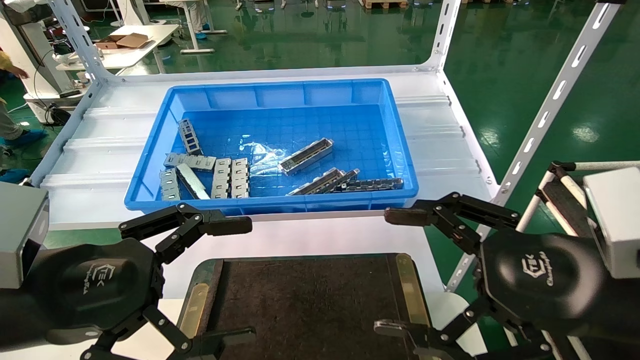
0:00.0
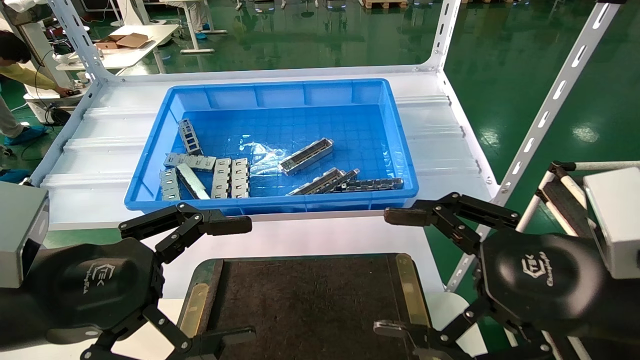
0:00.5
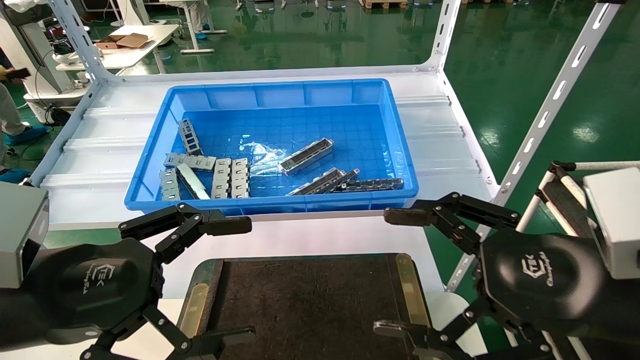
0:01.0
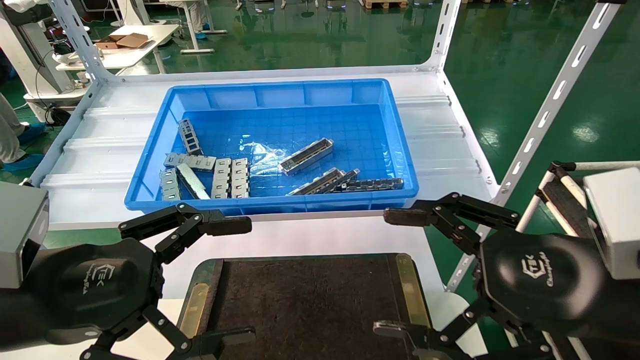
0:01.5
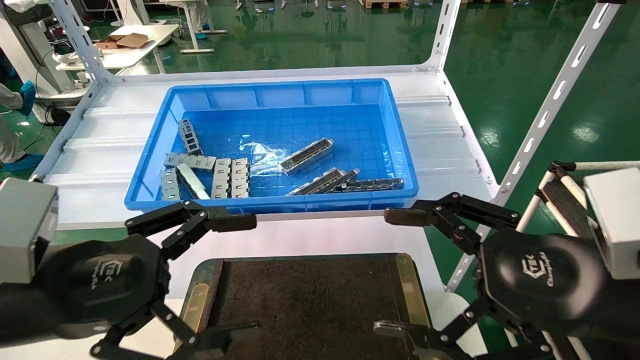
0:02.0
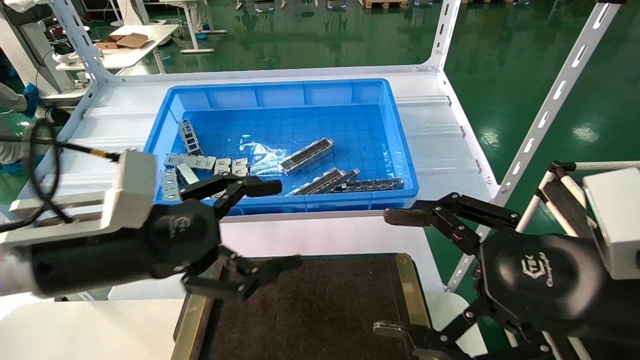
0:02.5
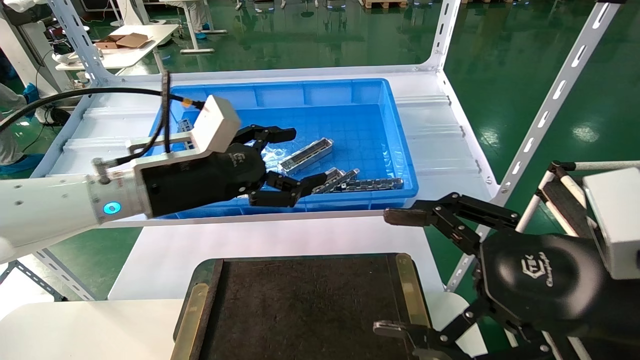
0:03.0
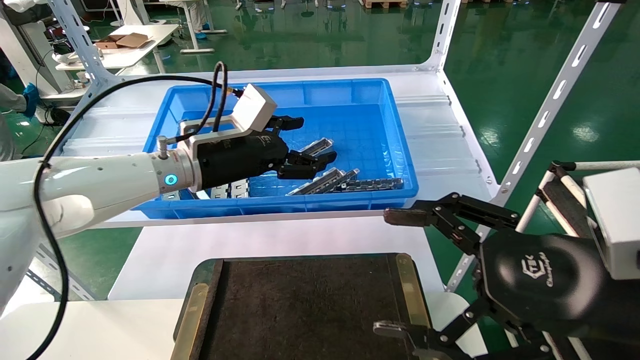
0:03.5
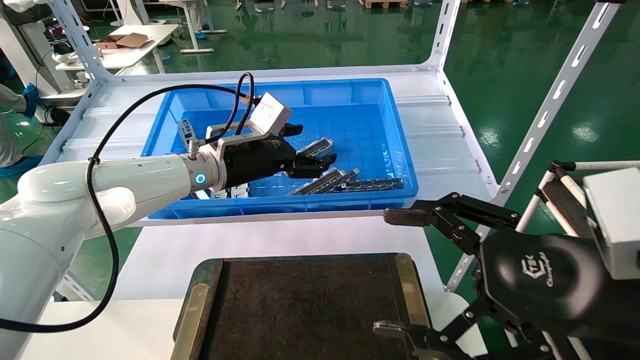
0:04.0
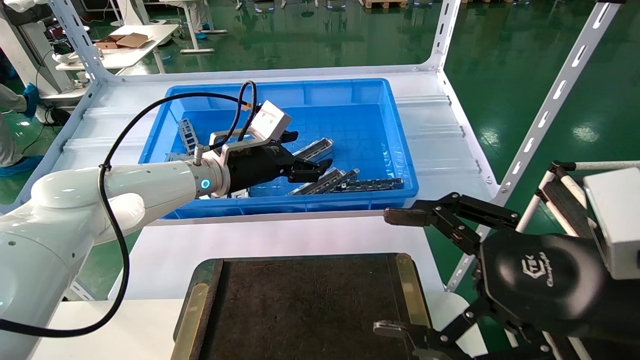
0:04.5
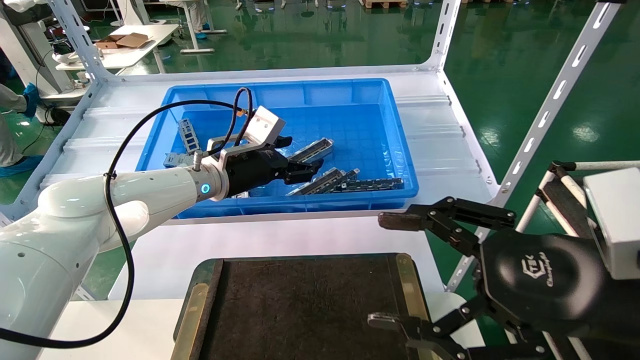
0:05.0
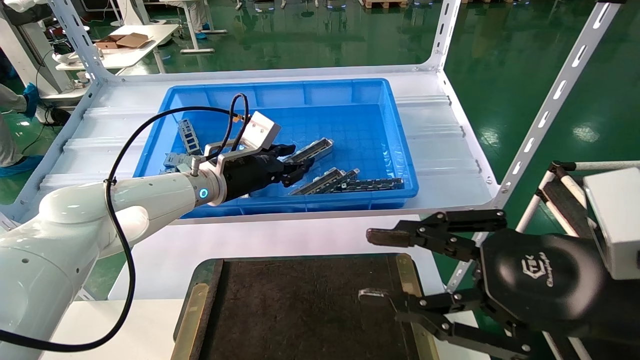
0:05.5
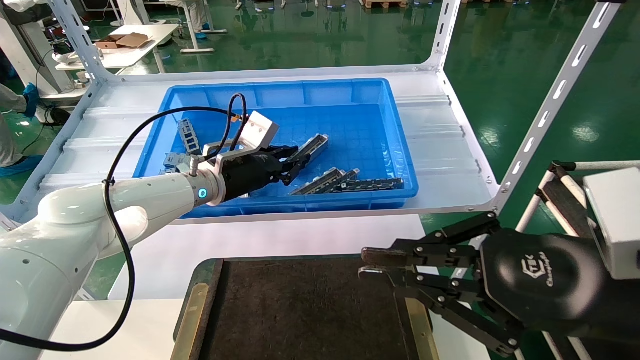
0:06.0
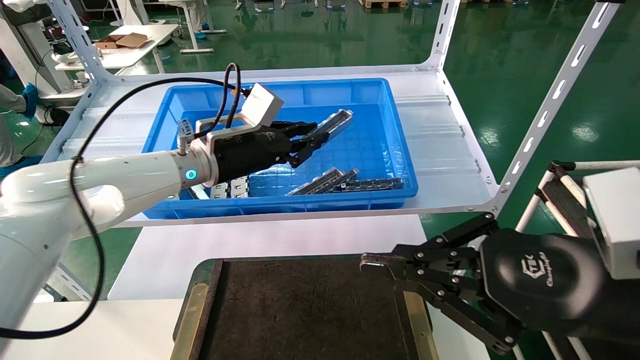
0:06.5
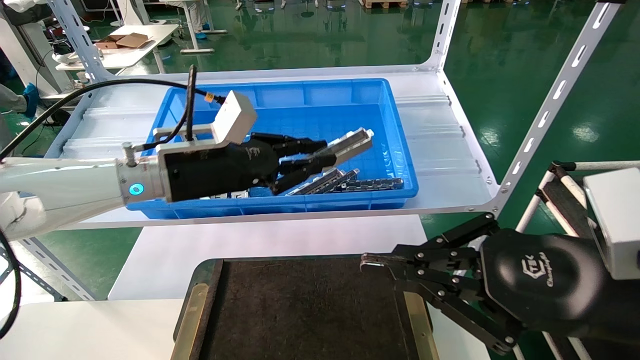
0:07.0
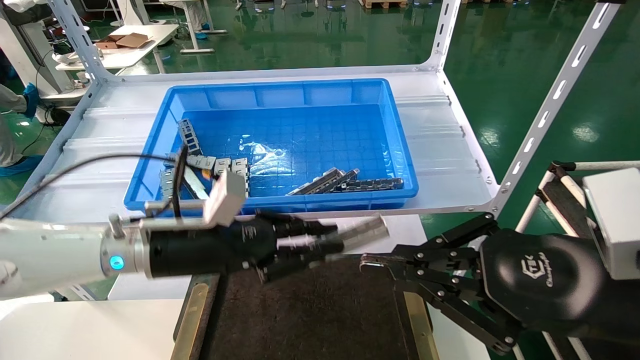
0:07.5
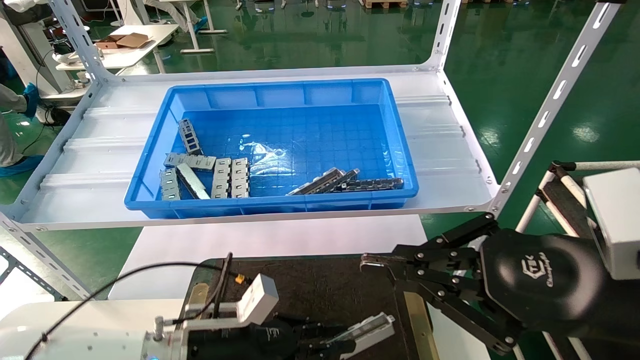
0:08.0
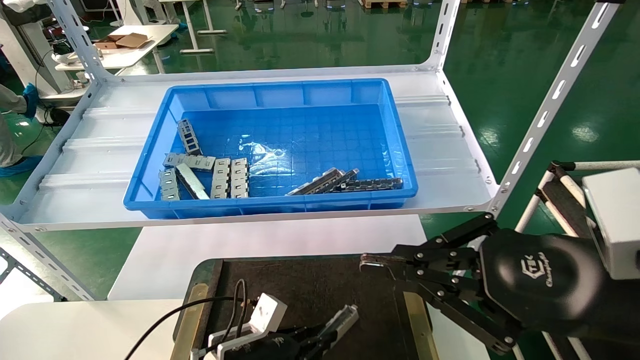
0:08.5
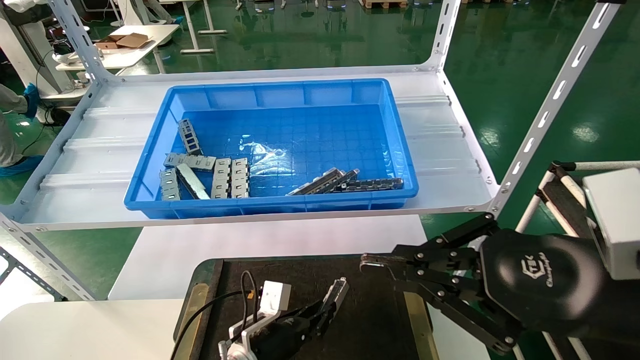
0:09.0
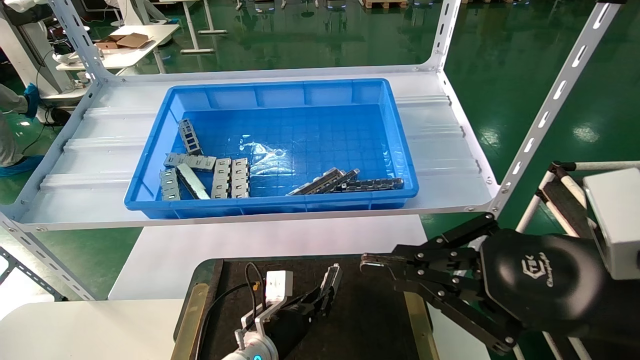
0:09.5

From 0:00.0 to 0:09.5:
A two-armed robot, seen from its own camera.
Task of the whole recording: Grasp the part with one hand and place it on the black container.
Step, from 0:02.5 to 0:05.5: Pick up the front USB bracket from the feeding area.
From 0:00.0 to 0:02.0: Both grippers stay put.
From 0:02.0 to 0:04.0: The left gripper travels forward by some 25 cm.
From 0:04.0 to 0:05.5: The right gripper closes up. The left gripper closes its fingers.
From 0:05.5 to 0:07.5: The left gripper is displaced backward and downward by some 15 cm, and closes up; the right gripper closes.
From 0:07.5 to 0:09.5: The left gripper is displaced downward and to the right by some 25 cm.

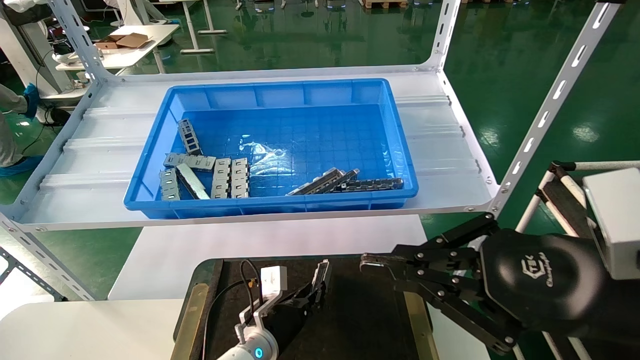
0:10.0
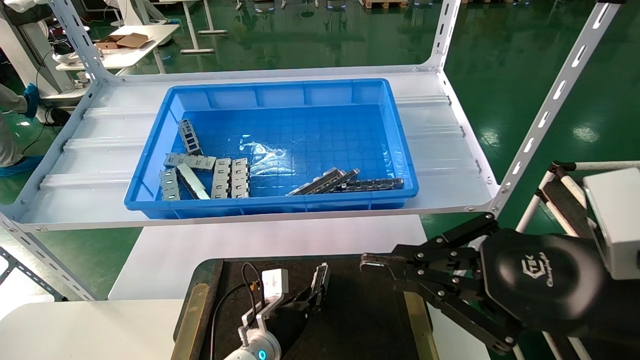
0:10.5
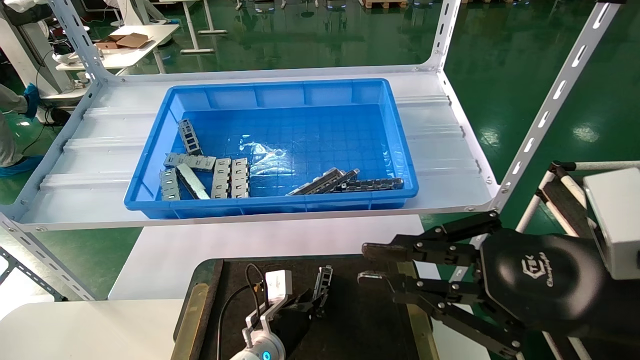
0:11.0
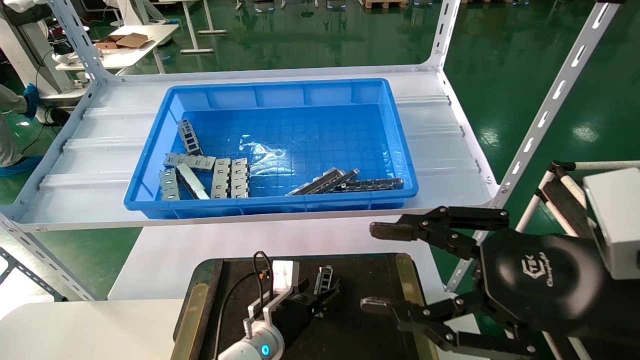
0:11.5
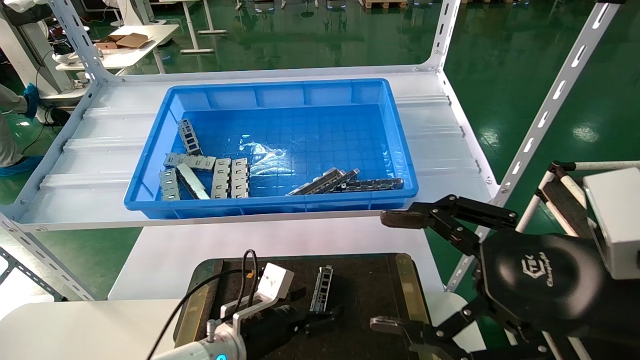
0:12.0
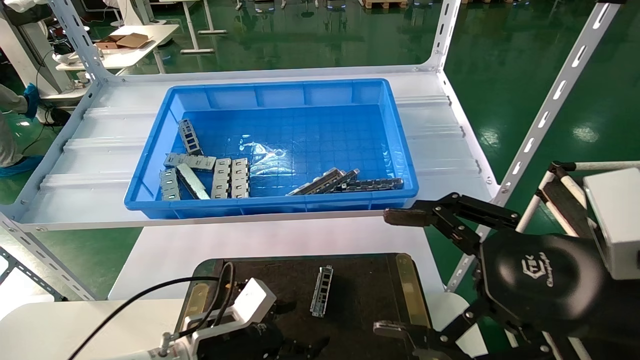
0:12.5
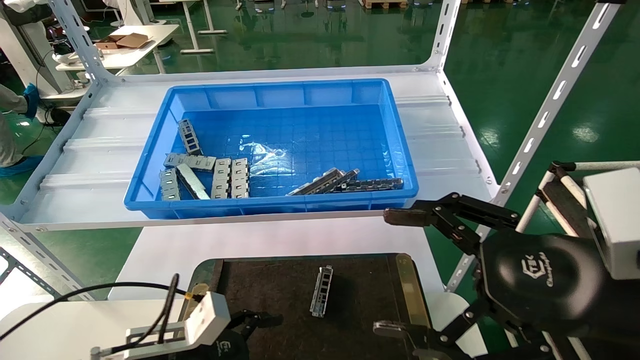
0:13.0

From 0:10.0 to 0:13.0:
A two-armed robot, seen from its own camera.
Task of the whole recording: Grasp the part with one hand and place it on the black container.
From 0:10.0 to 0:11.5: The left gripper opens its fingers; the right gripper opens.
From 0:11.5 to 0:13.0: The left gripper is displaced to the left, backward and upward by some 20 cm, and opens up; the right gripper opens up.

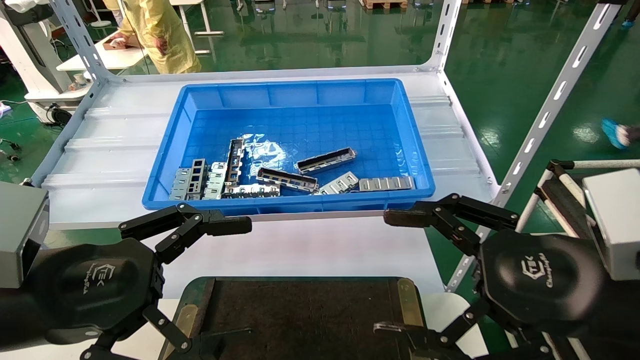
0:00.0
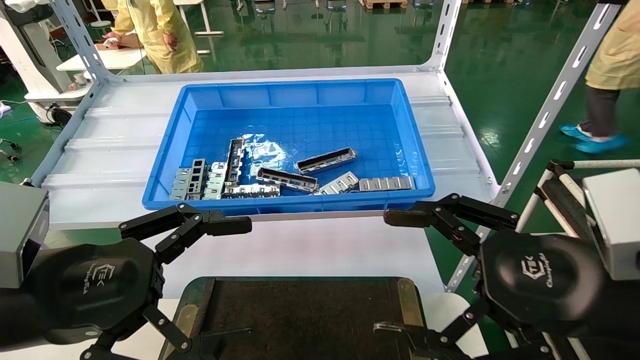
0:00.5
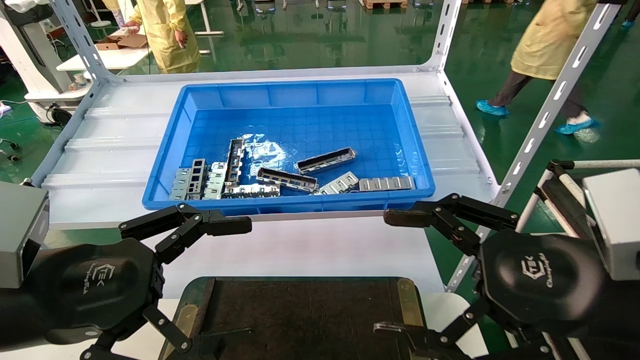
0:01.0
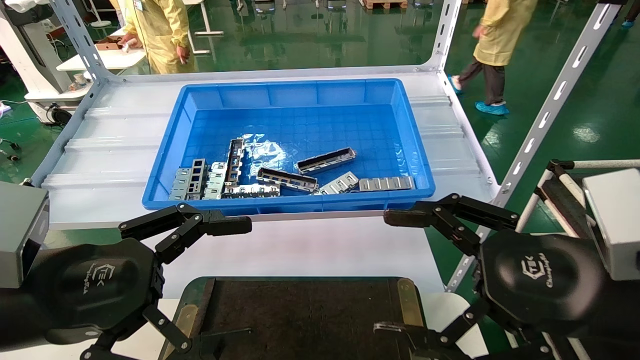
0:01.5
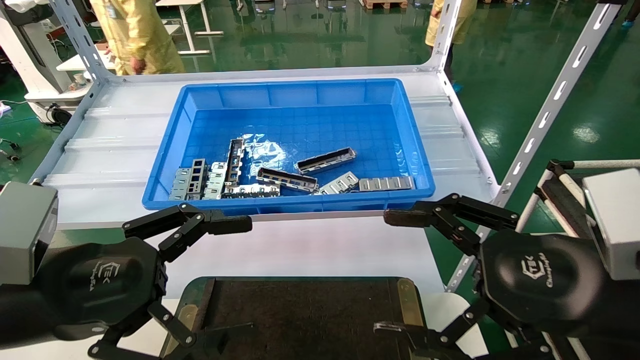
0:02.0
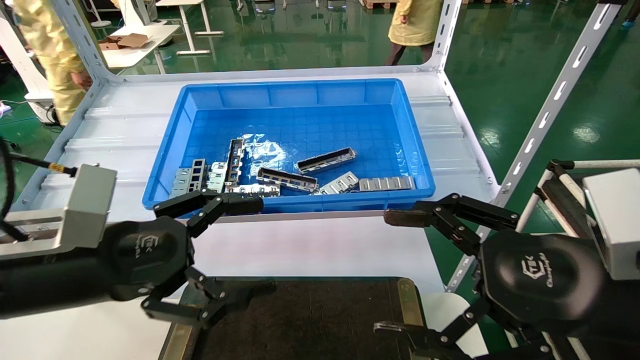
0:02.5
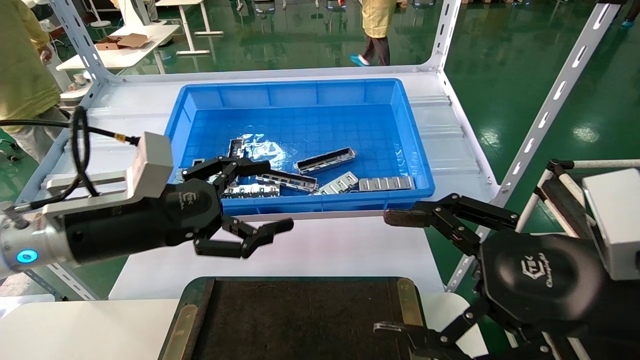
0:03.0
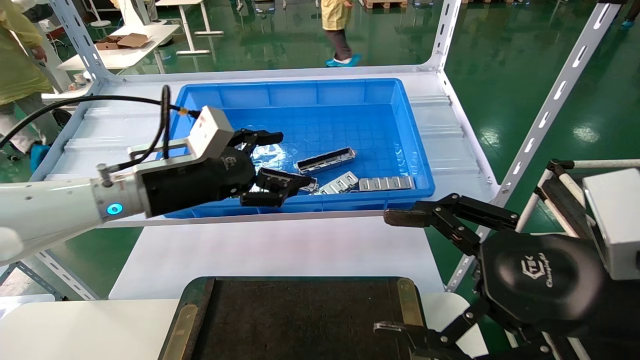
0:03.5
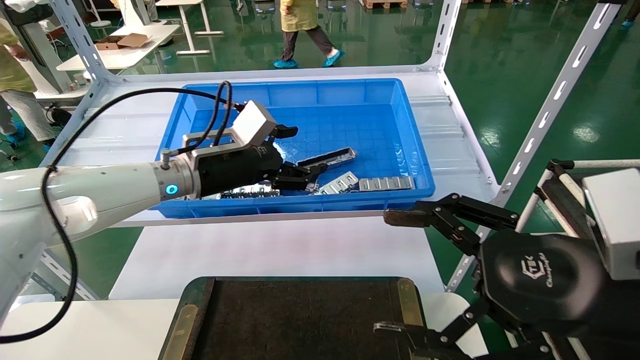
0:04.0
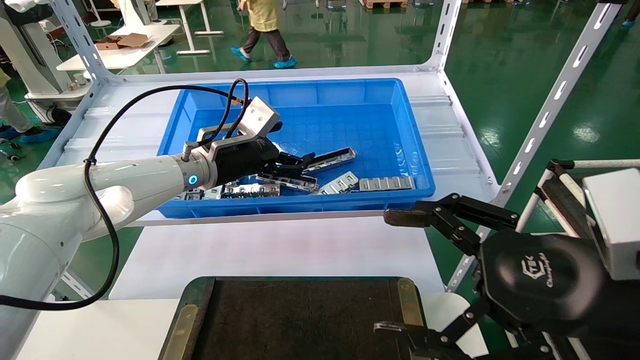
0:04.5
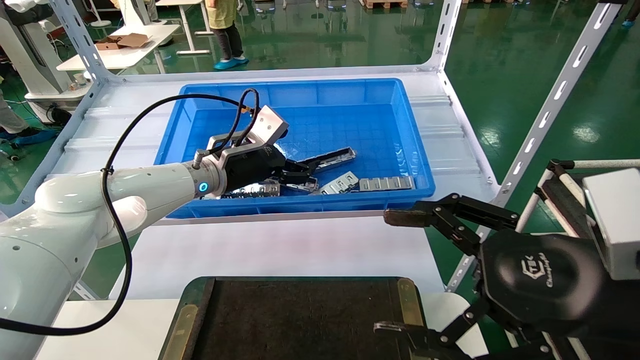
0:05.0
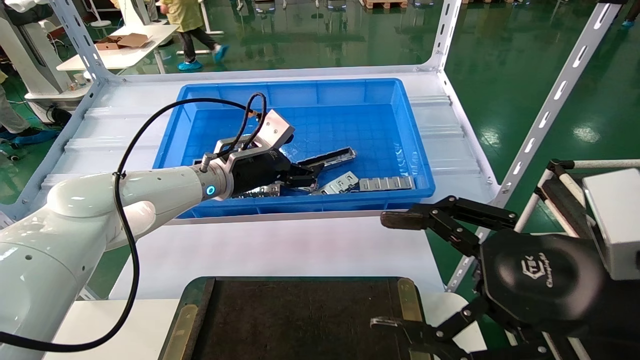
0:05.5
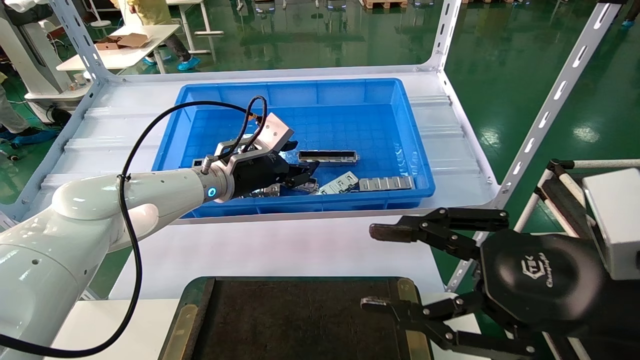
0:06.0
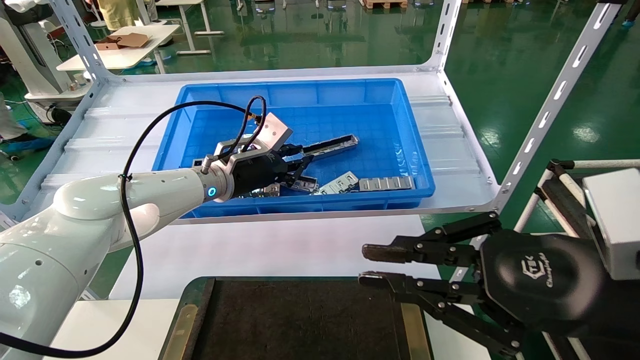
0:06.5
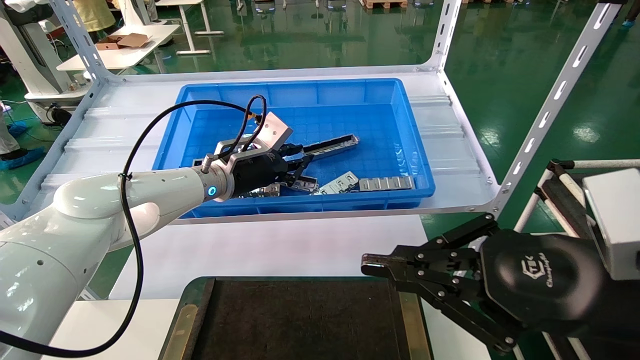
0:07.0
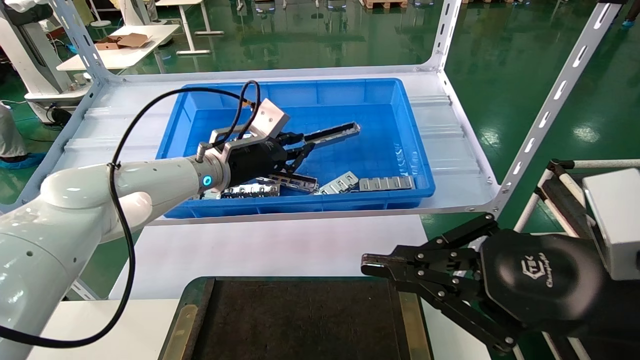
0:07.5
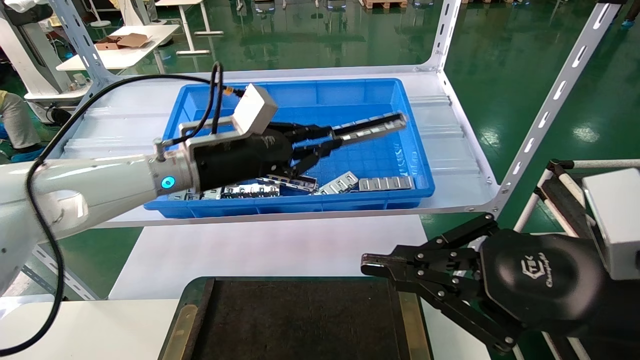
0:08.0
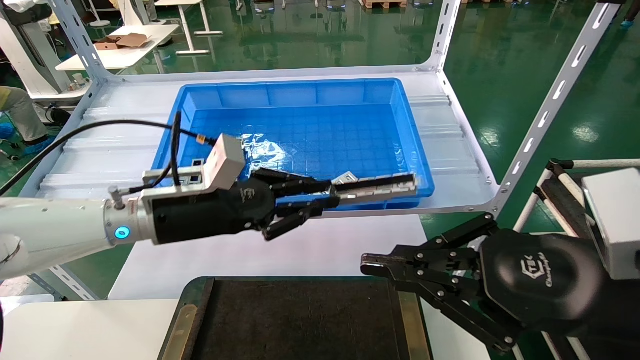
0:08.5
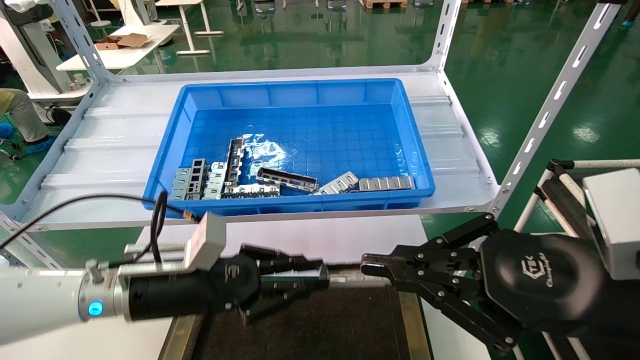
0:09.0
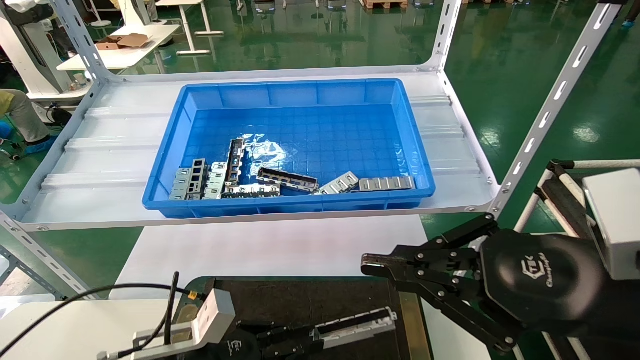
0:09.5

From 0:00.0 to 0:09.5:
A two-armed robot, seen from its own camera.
Task of the whole recording: Grasp the part with one hand and place it on the black container.
Step, from 0:02.5 to 0:06.5: Pick up the front USB bracket from the feeding area.
From 0:00.0 to 0:02.0: Neither gripper changes place.
From 0:02.0 to 0:04.0: The left gripper heads forward, covering some 25 cm.
From 0:04.0 to 0:05.5: The left gripper shifts by approximately 5 cm.
From 0:05.5 to 0:07.5: The left gripper closes. The right gripper closes.
From 0:07.5 to 0:09.5: The left gripper goes some 30 cm downward and backward.
